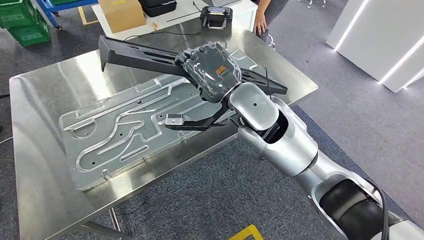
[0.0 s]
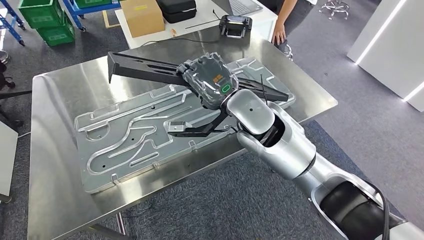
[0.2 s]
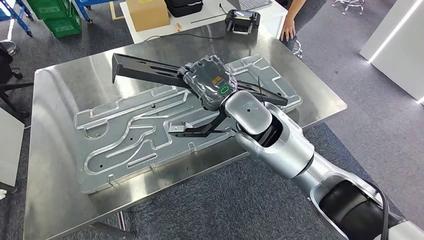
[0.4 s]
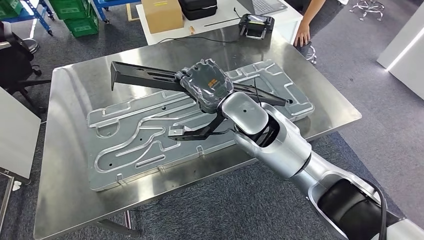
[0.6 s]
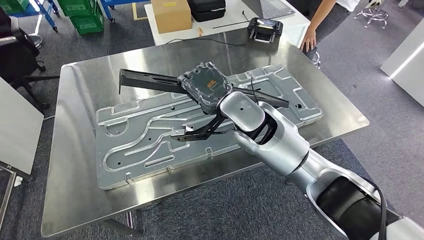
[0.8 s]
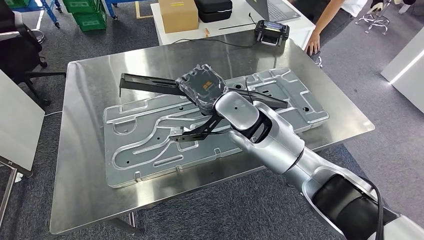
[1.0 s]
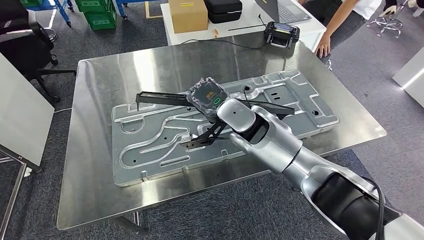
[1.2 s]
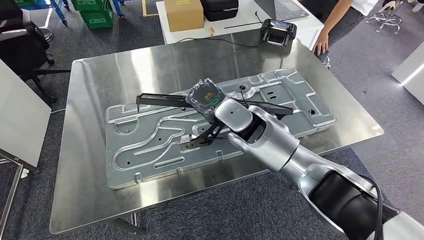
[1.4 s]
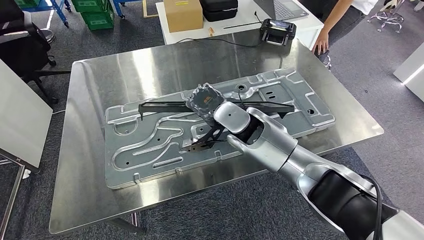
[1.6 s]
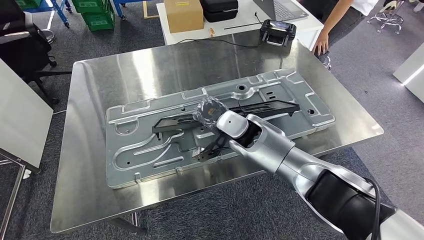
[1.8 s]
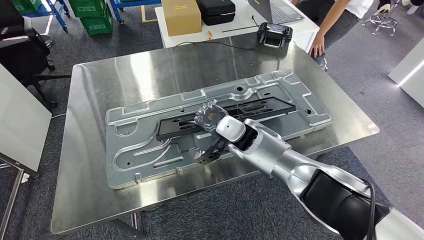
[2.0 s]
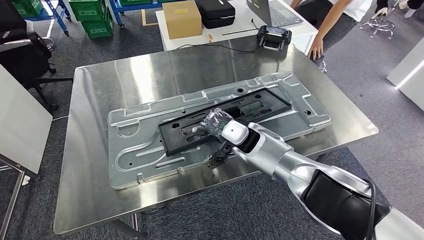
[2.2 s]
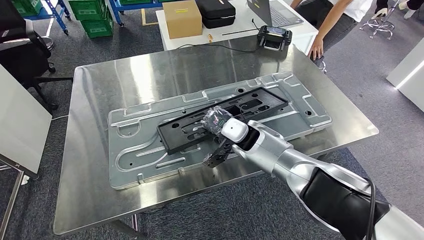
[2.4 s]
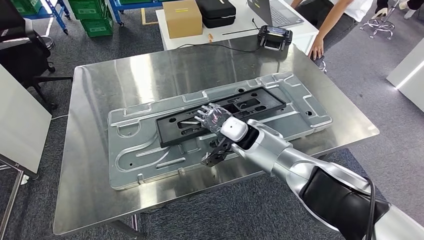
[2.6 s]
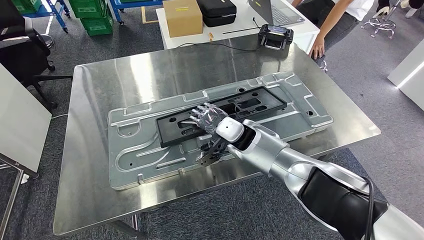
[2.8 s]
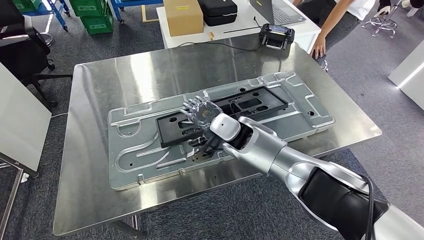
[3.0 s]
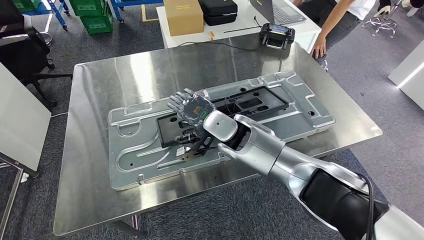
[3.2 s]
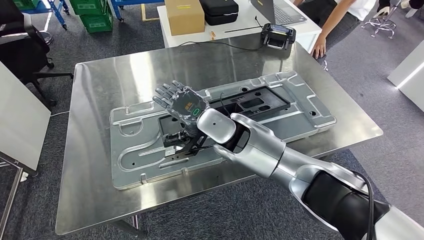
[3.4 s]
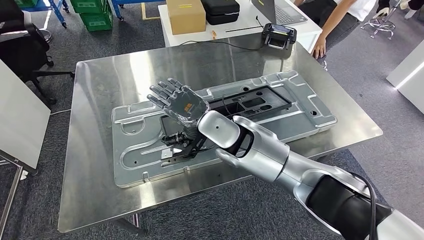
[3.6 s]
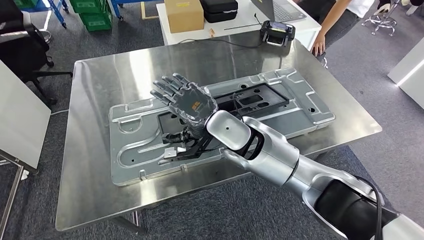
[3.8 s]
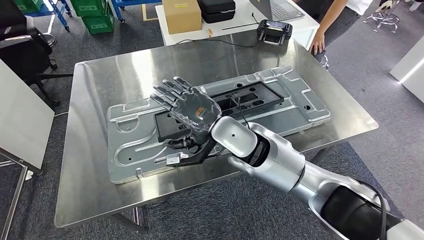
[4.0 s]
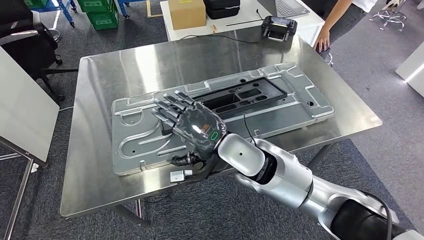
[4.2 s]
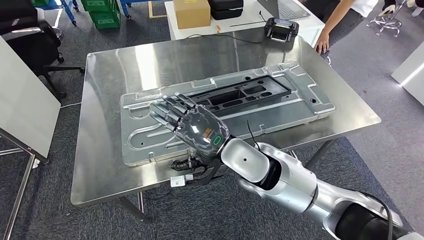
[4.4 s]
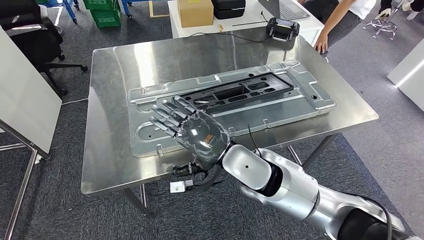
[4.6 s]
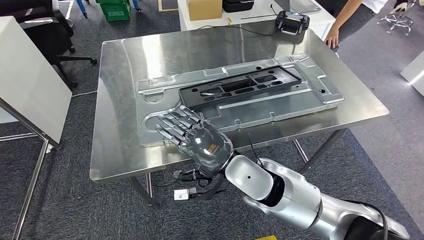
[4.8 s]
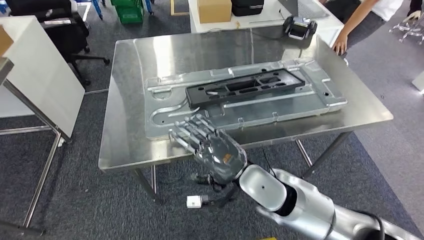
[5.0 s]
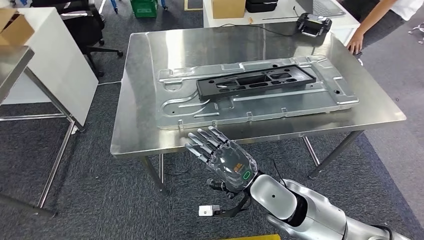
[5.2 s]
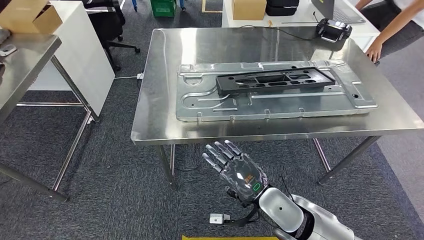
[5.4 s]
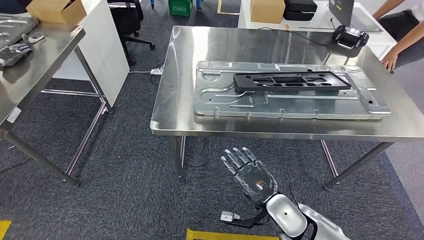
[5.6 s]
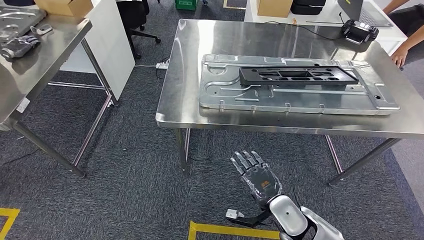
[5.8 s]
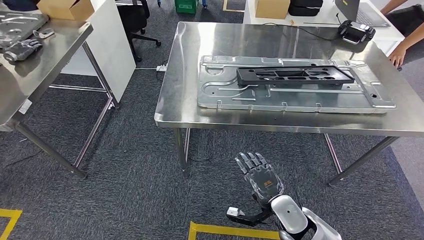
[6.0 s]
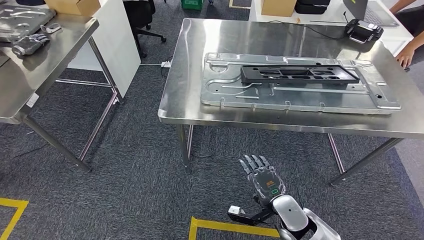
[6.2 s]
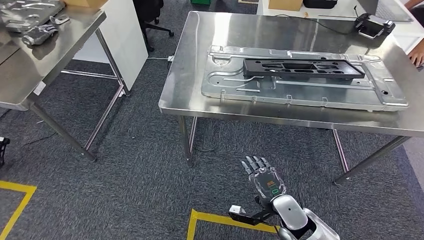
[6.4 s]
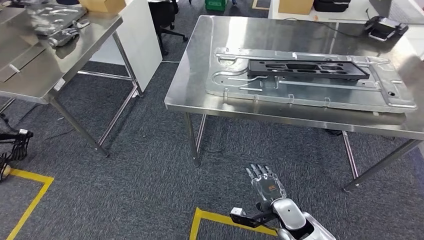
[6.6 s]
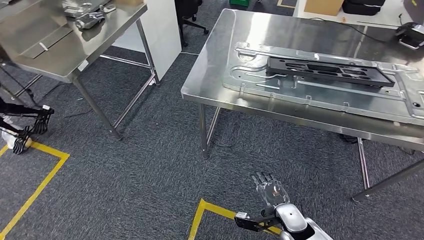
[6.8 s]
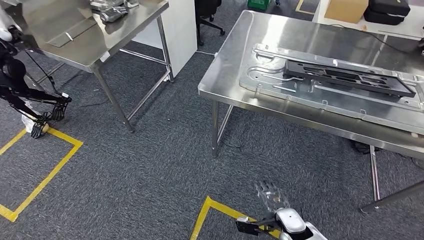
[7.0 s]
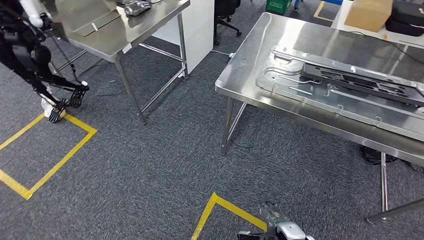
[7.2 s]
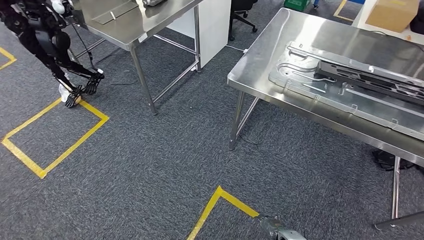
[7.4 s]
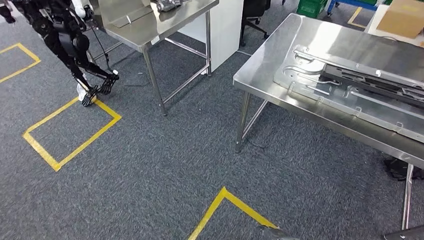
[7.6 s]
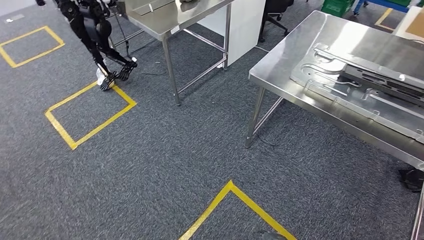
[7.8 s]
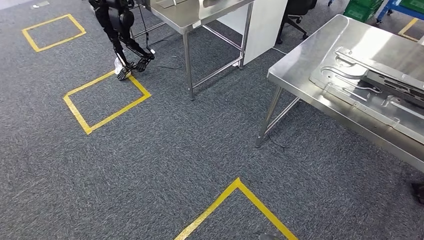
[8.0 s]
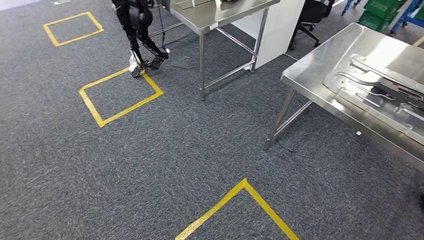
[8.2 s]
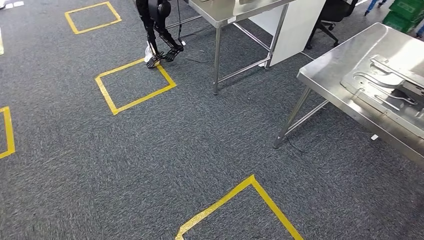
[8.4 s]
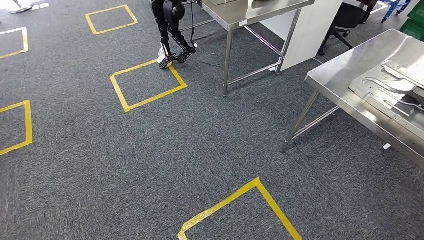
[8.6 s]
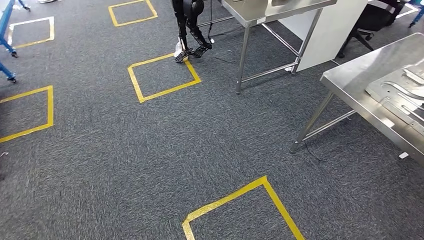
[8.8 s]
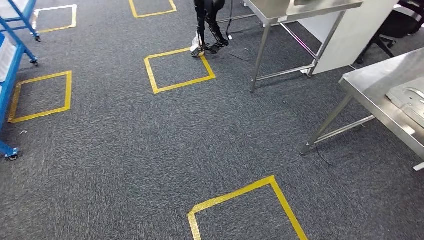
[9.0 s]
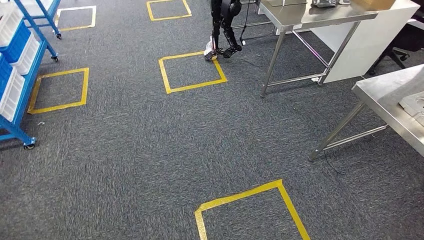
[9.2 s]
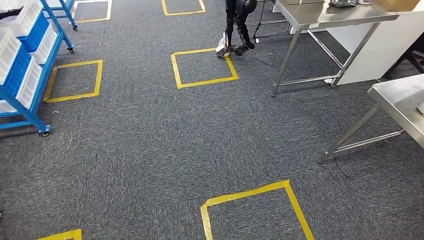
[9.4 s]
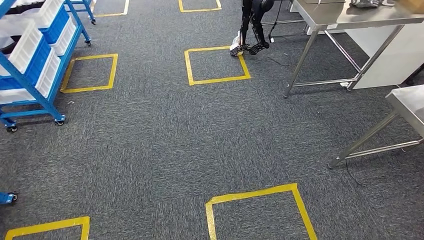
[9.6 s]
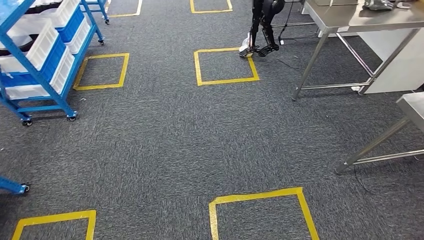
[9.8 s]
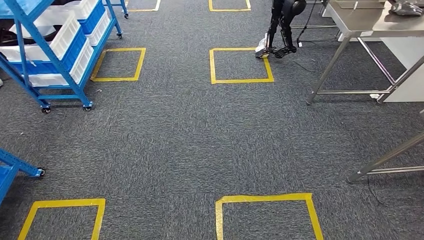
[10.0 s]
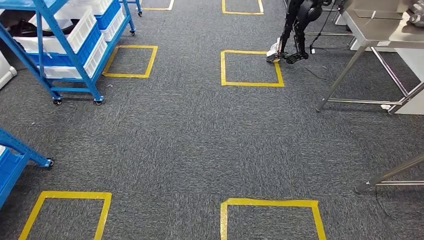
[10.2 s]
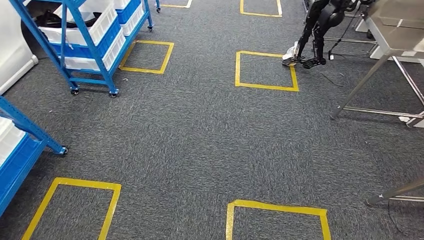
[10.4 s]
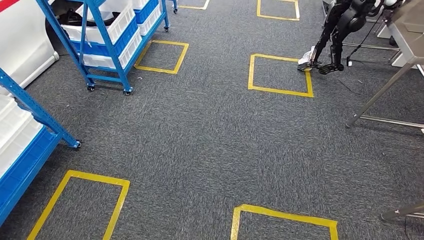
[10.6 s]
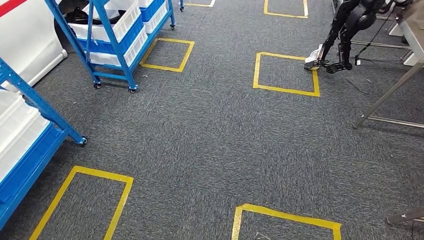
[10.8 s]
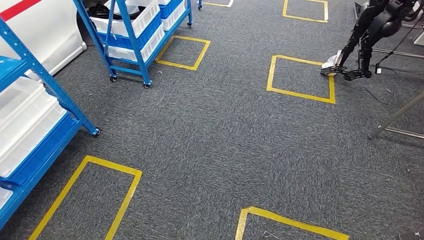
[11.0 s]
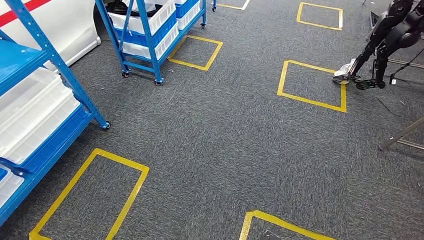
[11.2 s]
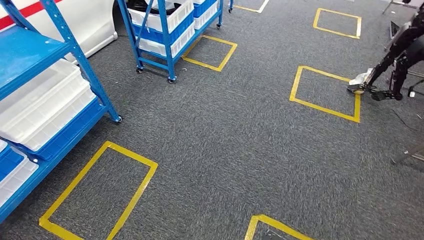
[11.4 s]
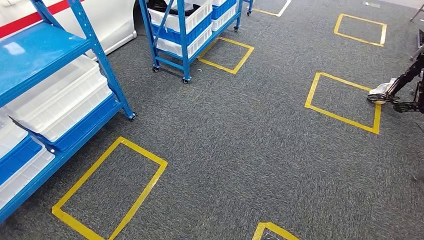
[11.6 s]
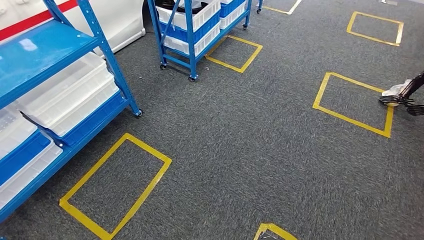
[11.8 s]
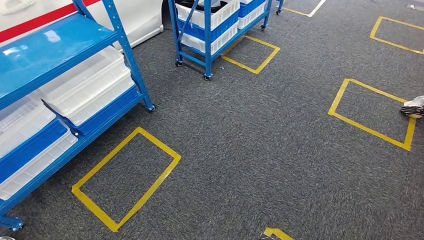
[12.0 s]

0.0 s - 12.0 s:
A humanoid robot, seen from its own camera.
Step, 0.0 s - 4.0 s: Insert the large material into the corresponding slot on the workbench.

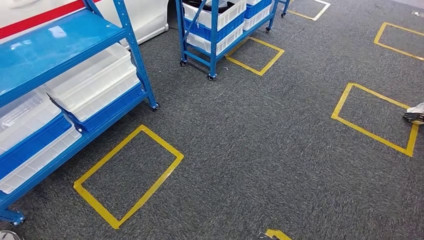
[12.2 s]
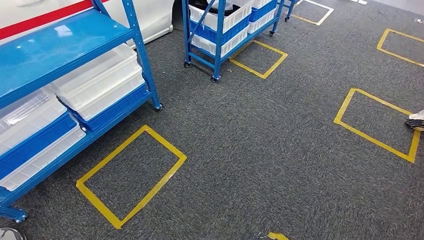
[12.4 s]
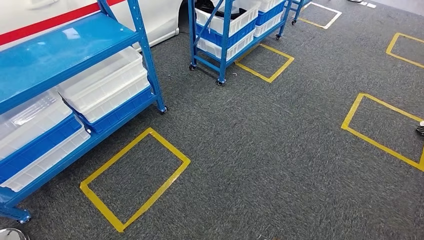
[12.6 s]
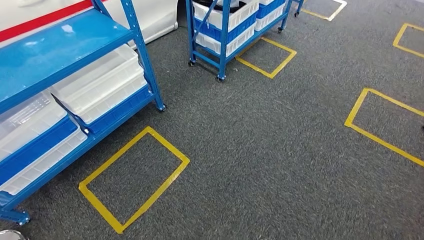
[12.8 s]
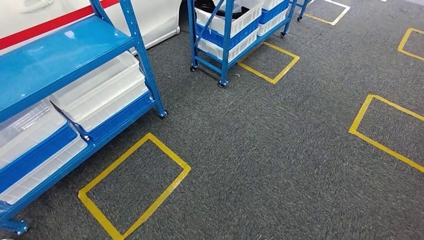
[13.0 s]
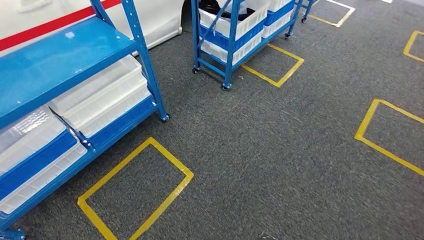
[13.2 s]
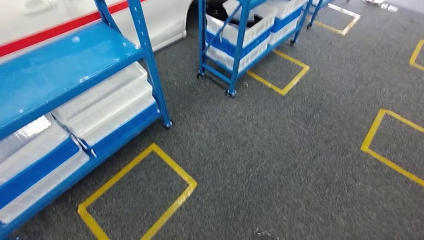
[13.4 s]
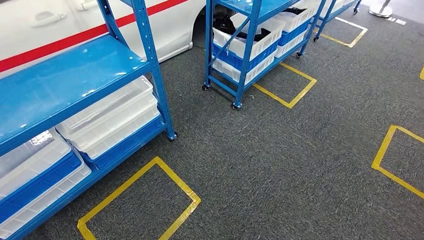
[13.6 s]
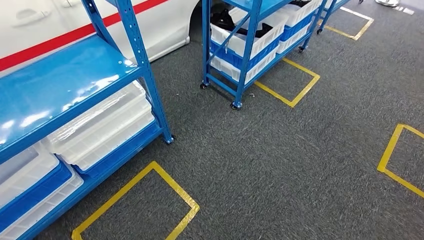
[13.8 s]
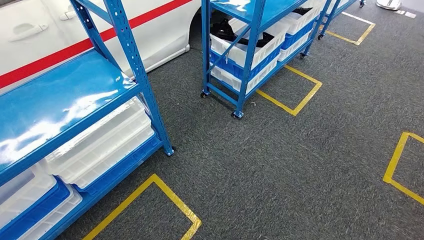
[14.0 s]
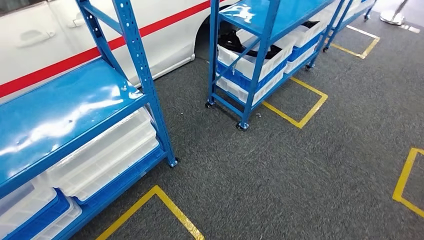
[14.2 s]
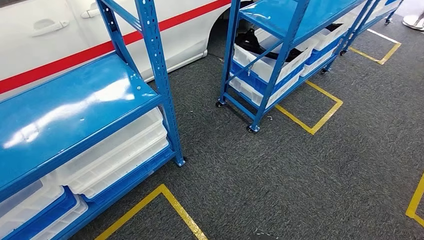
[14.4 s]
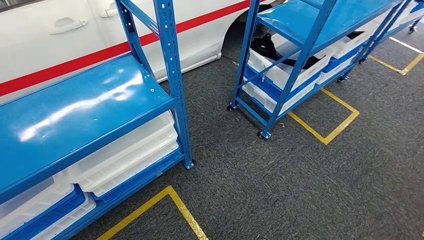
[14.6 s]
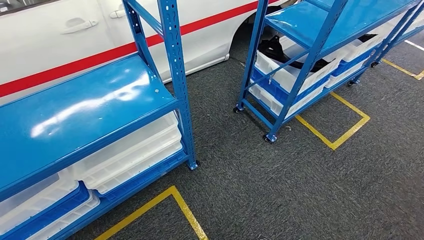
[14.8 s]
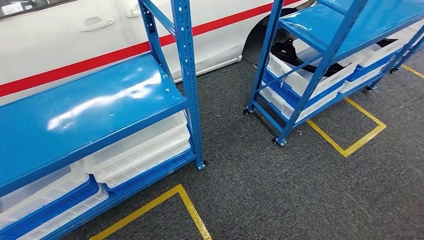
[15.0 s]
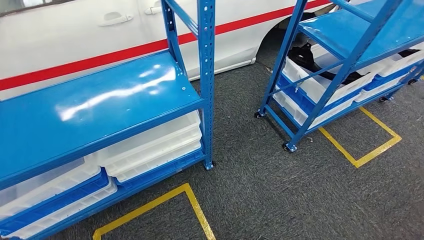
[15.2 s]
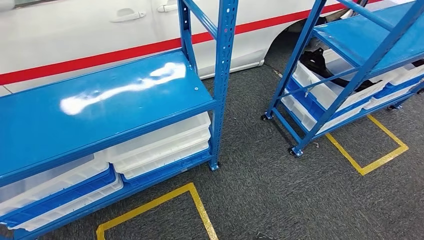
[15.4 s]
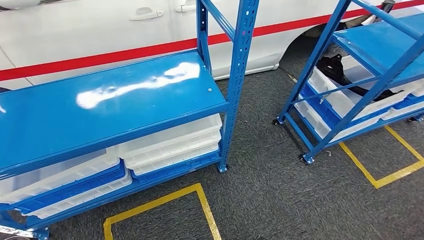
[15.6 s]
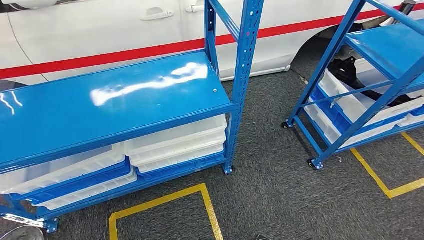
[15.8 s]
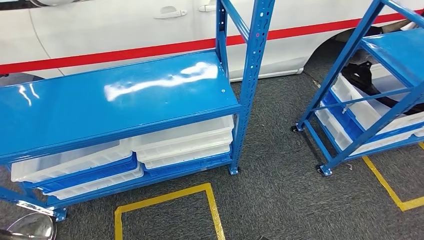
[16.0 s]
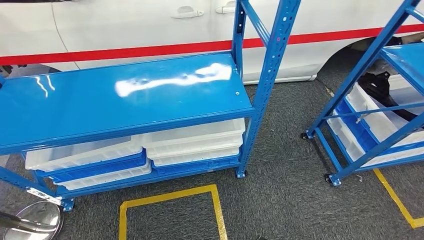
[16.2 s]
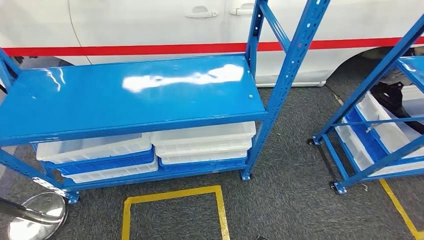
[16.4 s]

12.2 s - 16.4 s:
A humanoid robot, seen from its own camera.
Step, 12.2 s - 16.4 s: Move to the initial position of the shelf.
